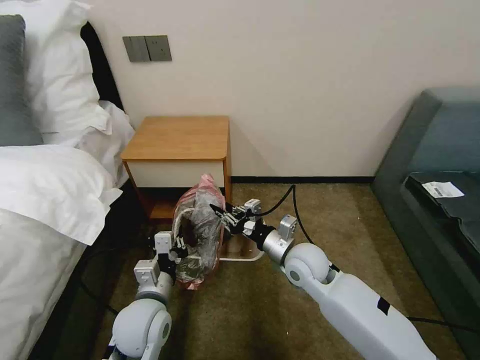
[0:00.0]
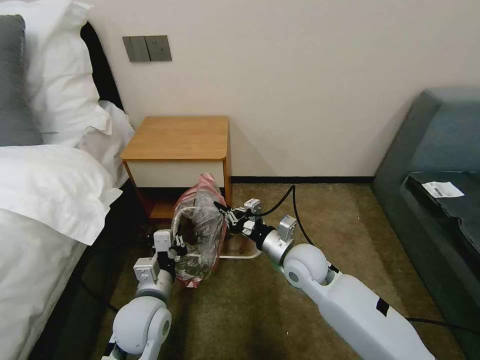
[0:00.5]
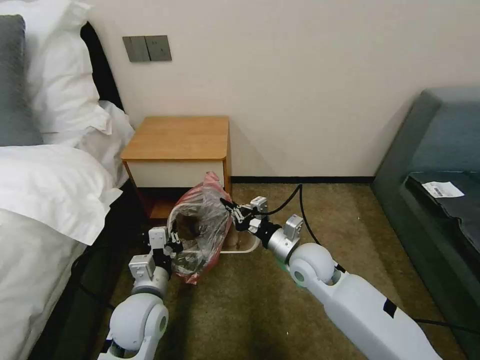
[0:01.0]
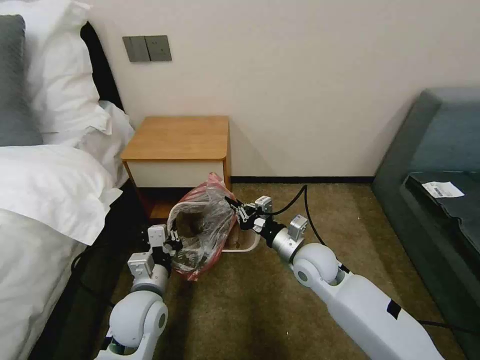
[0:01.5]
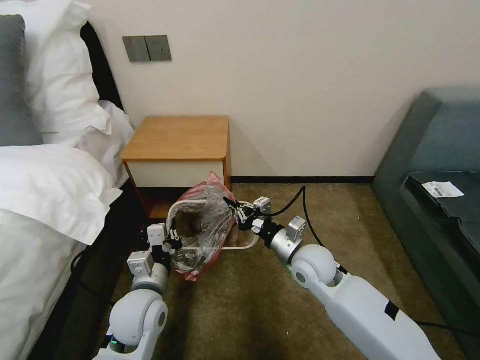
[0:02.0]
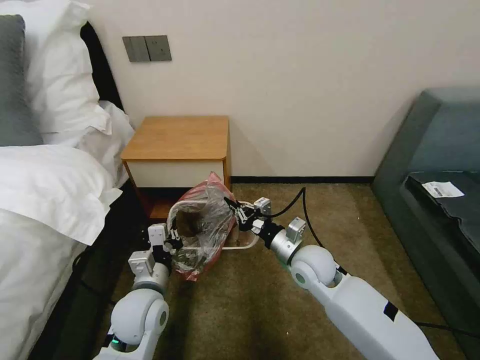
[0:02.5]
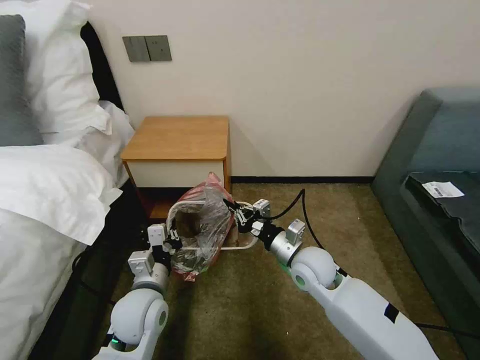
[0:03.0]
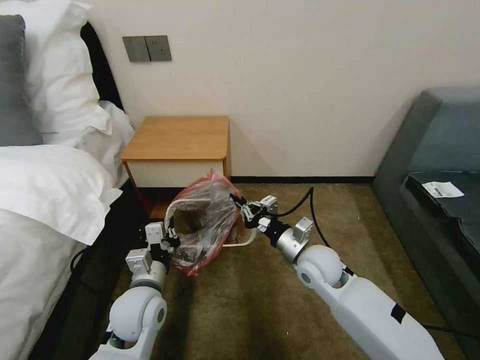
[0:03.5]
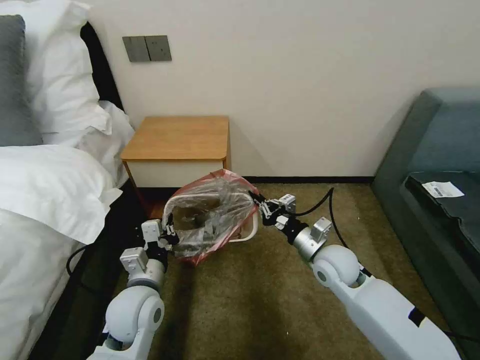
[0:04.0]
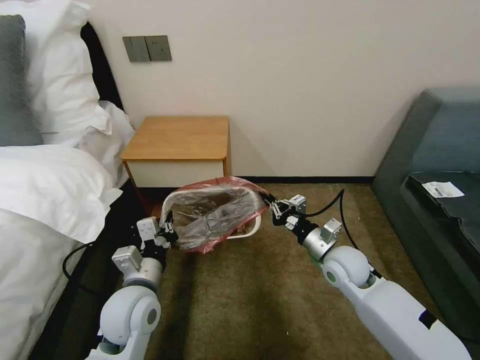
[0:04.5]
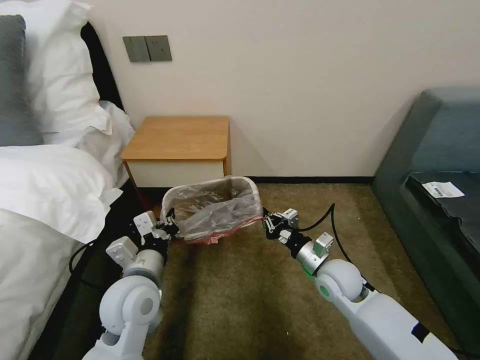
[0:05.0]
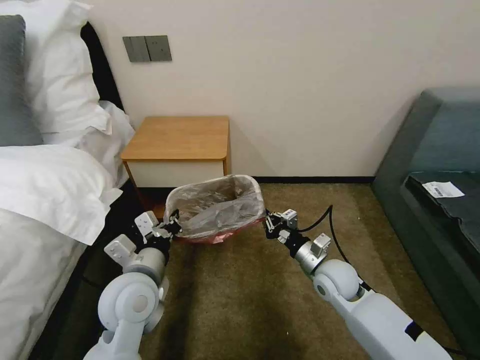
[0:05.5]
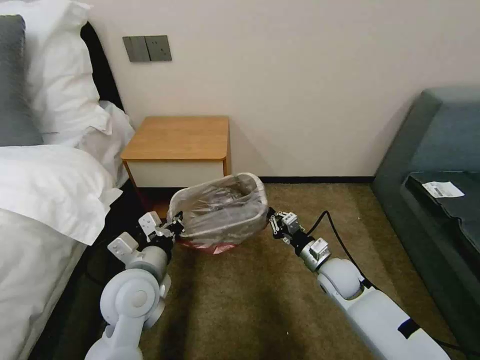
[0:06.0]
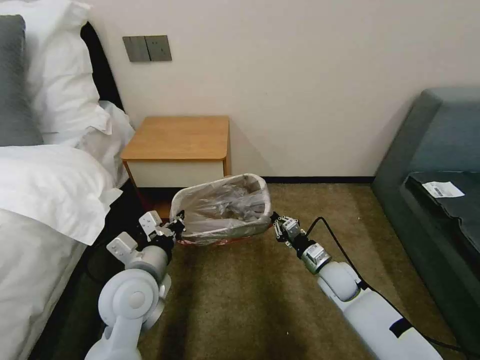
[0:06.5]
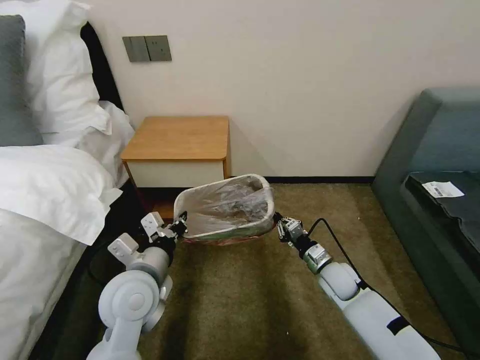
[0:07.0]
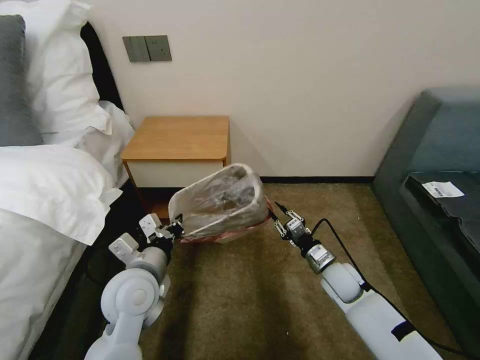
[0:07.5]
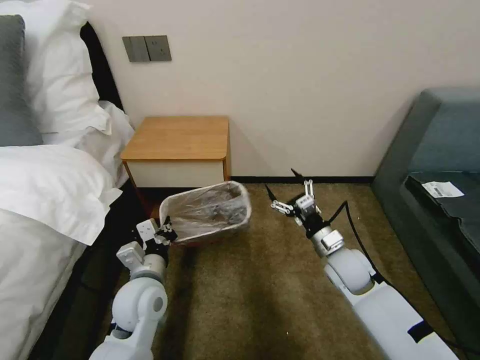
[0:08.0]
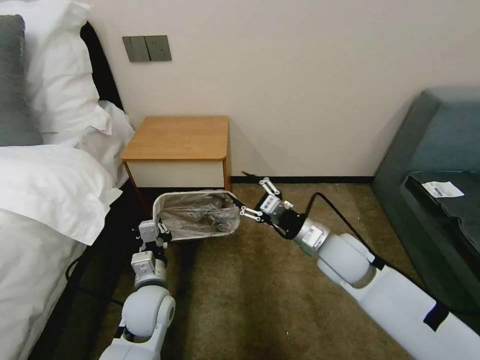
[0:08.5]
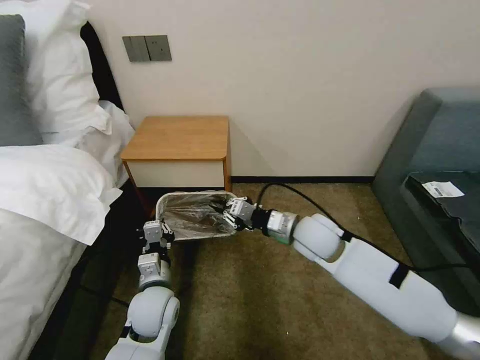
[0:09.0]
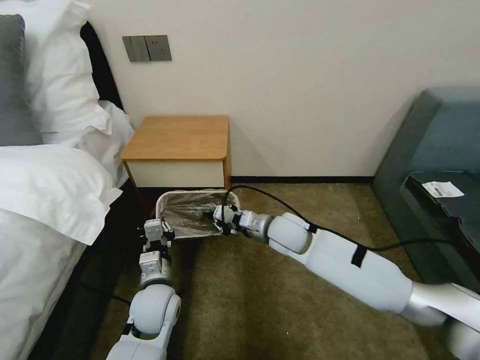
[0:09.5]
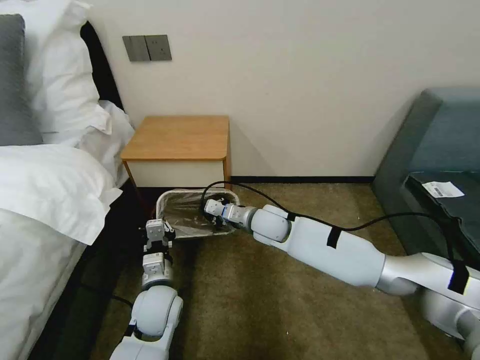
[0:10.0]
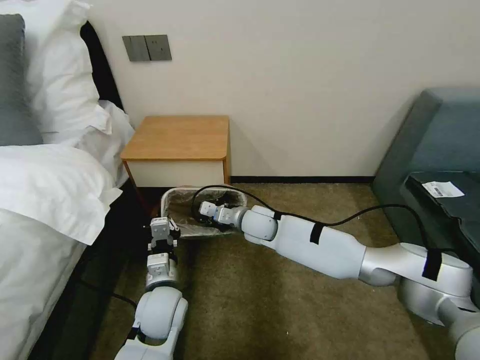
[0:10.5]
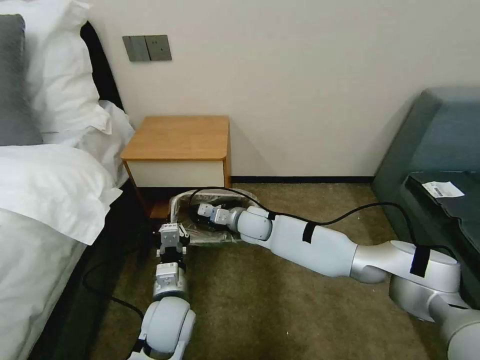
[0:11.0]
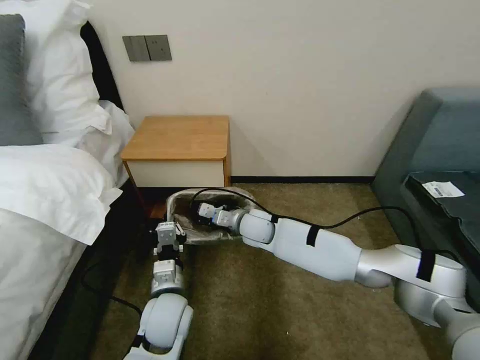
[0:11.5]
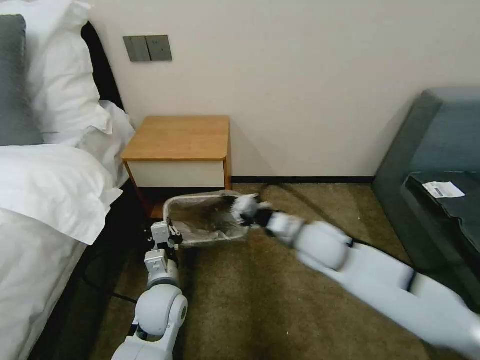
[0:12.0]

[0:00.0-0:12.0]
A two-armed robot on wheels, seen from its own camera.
Task of the whole recording: Pick up the garbage bag from the table and place it over the trash can.
0:00.0 to 0:02.0: The grippers make only small movements.
0:02.0 to 0:04.0: The right gripper is displaced to the right by approximately 5 cm.
0:04.0 to 0:06.0: The right gripper moves downward, about 5 cm. The left gripper is displaced upward by about 5 cm.
0:06.0 to 0:08.0: The right gripper is displaced upward by about 5 cm, and opens, while the left gripper goes roughly 5 cm downward.
0:08.0 to 0:10.0: The left gripper goes some 5 cm downward; the right gripper heads to the left and forward, covering roughly 20 cm, and closes.
0:10.0 to 0:12.0: The right gripper is displaced backward and to the right by some 10 cm.

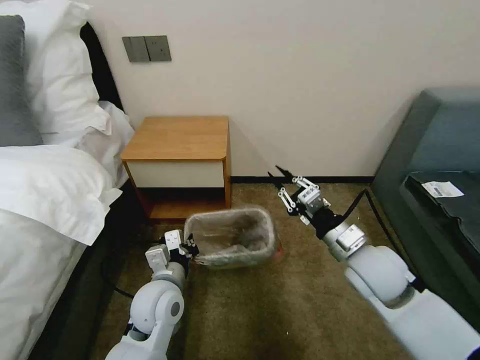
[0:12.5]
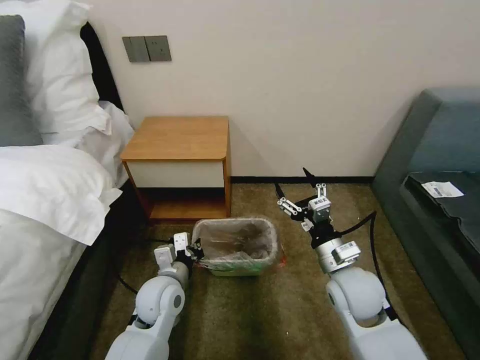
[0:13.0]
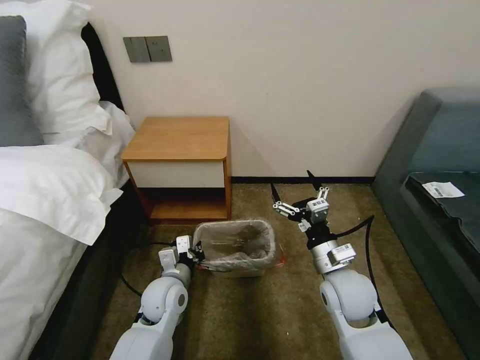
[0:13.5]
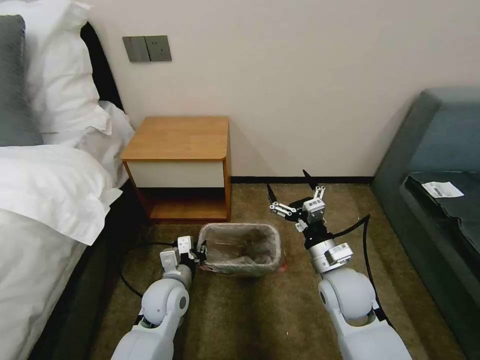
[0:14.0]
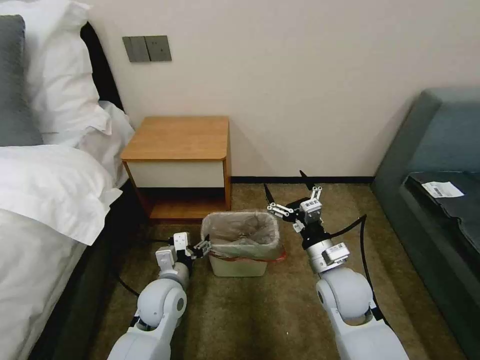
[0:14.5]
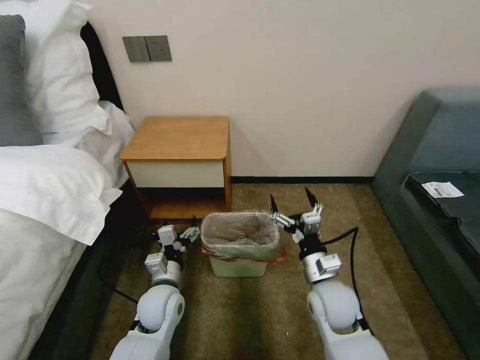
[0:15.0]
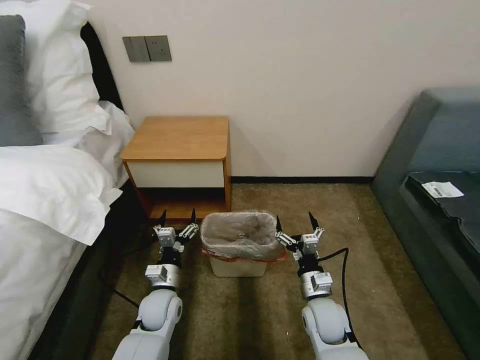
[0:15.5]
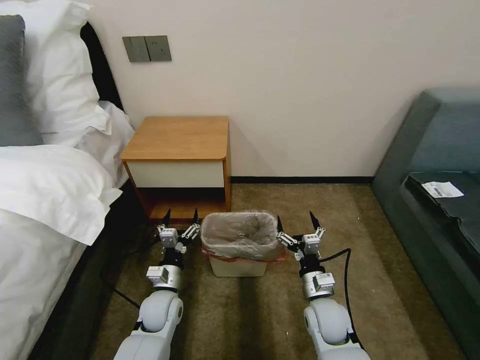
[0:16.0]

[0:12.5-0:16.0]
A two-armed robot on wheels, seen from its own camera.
Task of the whole recording: Pick up the garbage bag from the table and place it over the trash can.
0:12.5 to 0:14.5: The left gripper shifts by approximately 5 cm, and opens. Meanwhile the right gripper travels downward by roughly 5 cm, and opens up.
0:14.5 to 0:16.0: The two grippers go about 10 cm downward.
